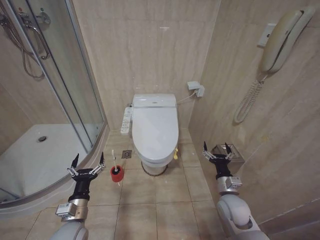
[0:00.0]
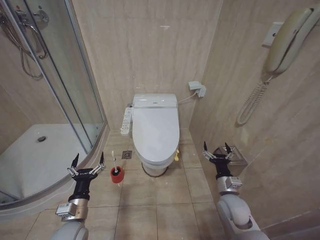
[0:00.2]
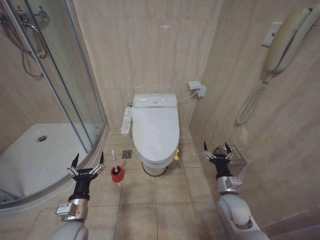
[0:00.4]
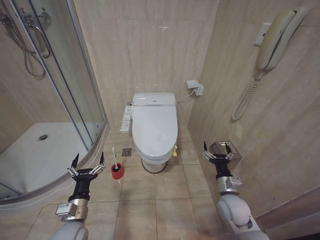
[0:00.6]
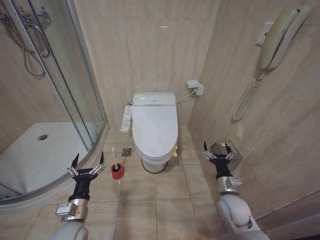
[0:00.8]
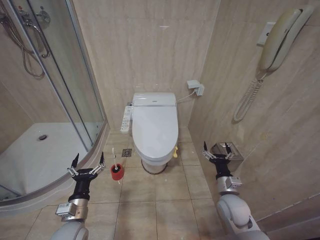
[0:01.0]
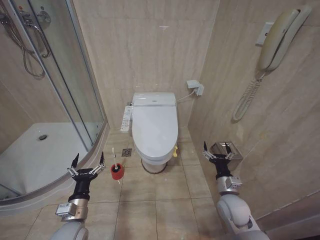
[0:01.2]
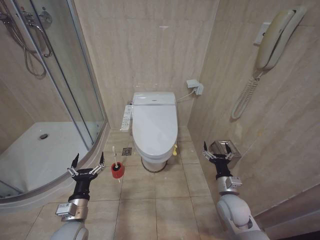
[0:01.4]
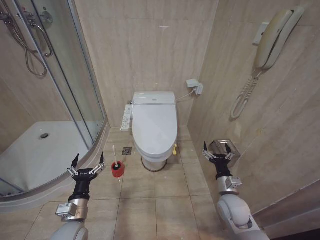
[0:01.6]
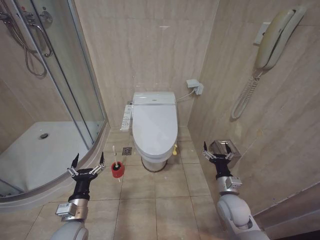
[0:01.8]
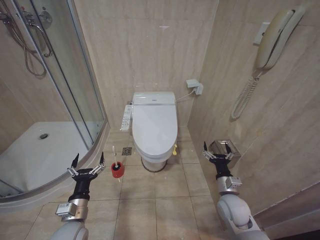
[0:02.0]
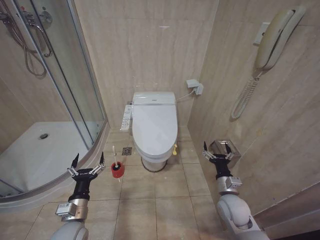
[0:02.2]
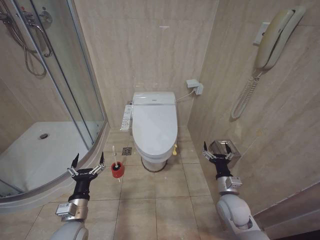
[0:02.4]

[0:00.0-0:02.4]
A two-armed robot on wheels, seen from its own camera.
Task of the whole recording: Open the toilet lid, clean the toilet bowl with a toilet brush, close the toilet lid, and flush.
0.0 to 2.4 s: The two grippers keep their place.

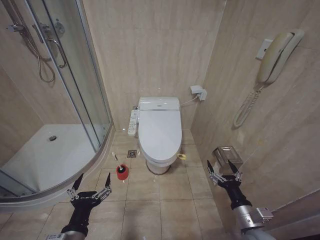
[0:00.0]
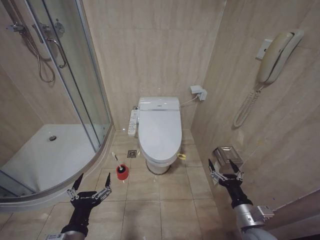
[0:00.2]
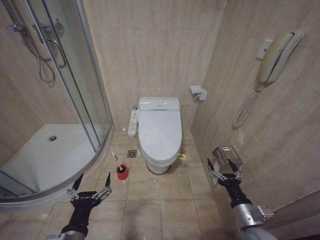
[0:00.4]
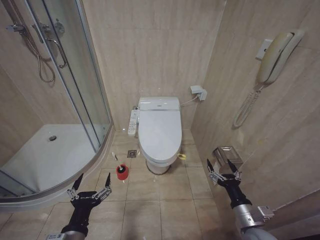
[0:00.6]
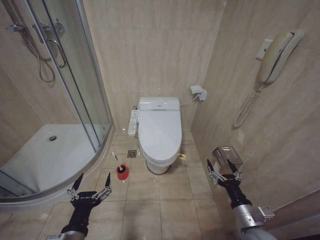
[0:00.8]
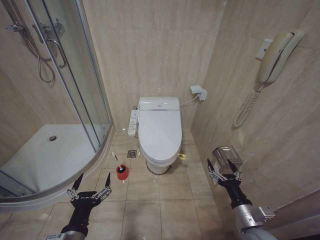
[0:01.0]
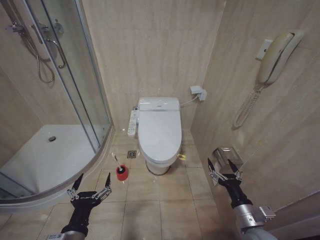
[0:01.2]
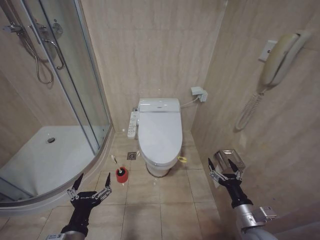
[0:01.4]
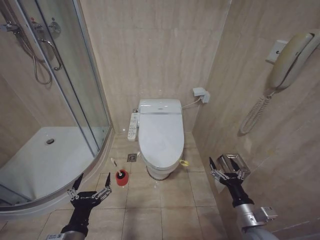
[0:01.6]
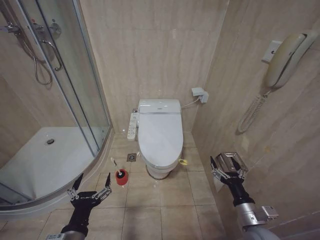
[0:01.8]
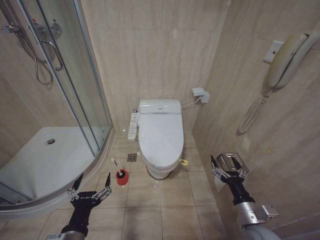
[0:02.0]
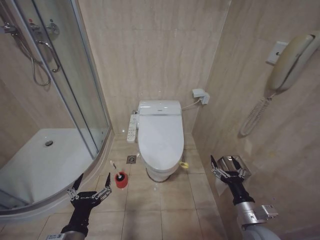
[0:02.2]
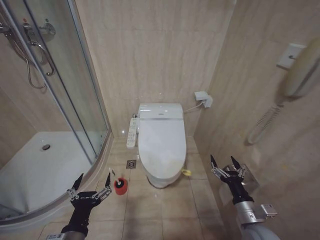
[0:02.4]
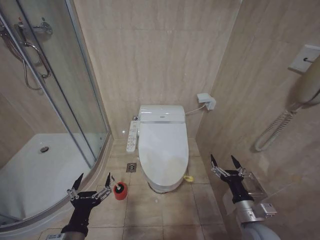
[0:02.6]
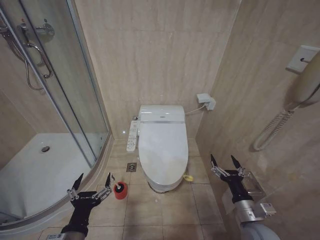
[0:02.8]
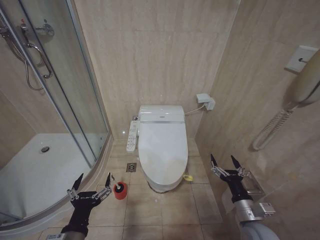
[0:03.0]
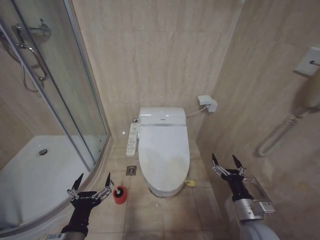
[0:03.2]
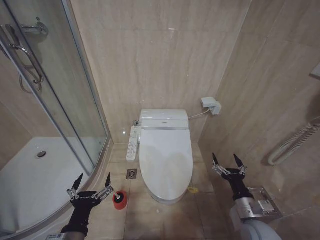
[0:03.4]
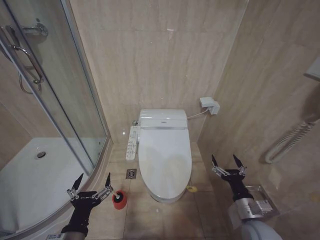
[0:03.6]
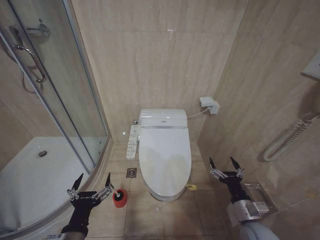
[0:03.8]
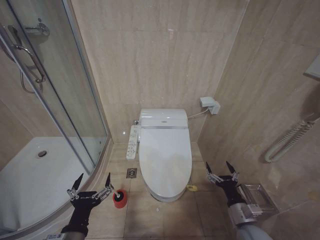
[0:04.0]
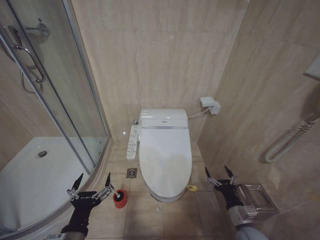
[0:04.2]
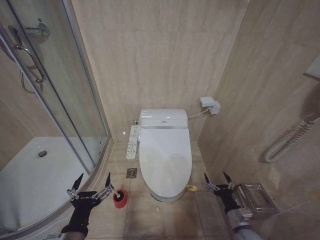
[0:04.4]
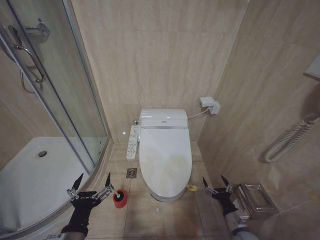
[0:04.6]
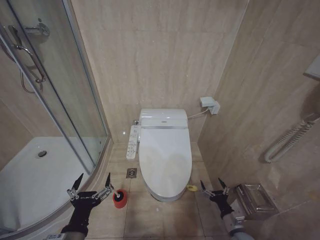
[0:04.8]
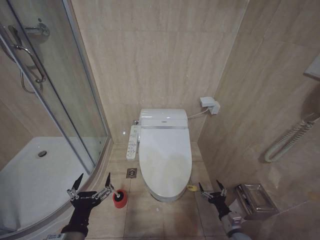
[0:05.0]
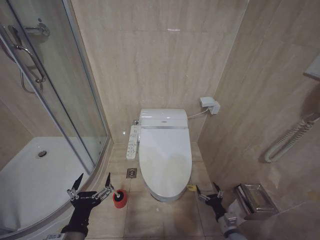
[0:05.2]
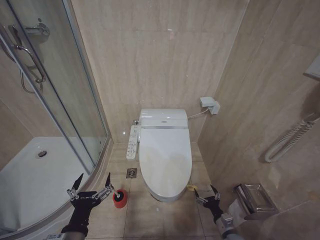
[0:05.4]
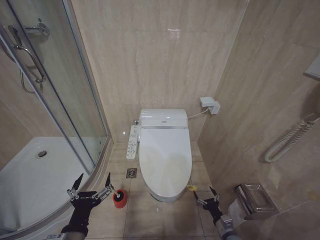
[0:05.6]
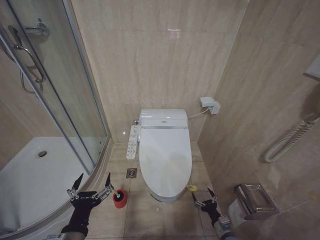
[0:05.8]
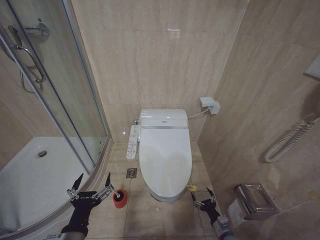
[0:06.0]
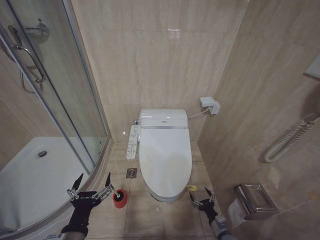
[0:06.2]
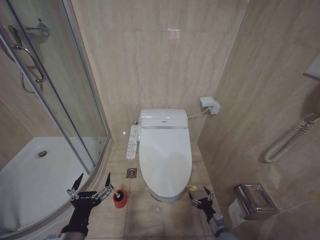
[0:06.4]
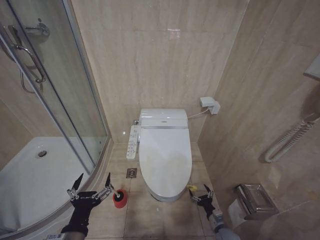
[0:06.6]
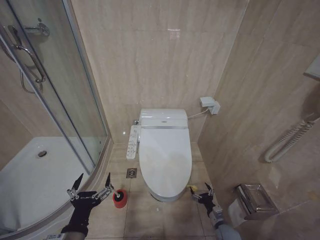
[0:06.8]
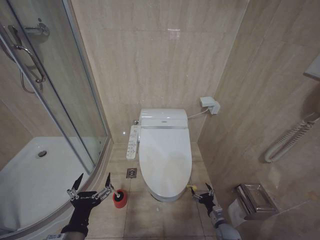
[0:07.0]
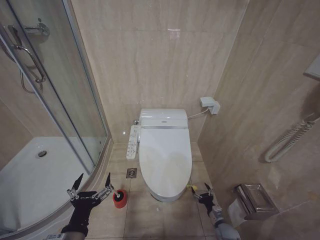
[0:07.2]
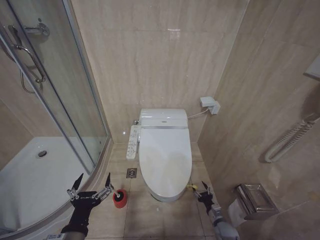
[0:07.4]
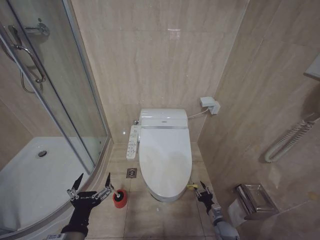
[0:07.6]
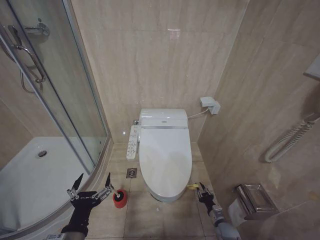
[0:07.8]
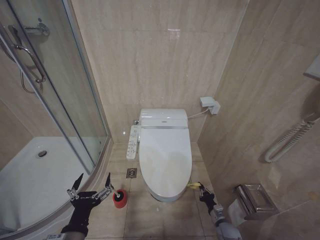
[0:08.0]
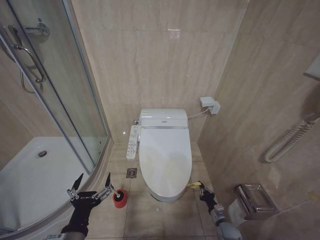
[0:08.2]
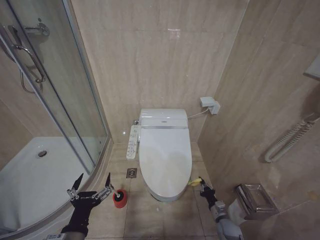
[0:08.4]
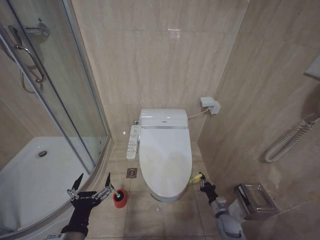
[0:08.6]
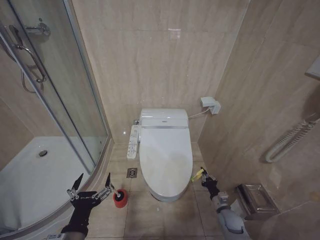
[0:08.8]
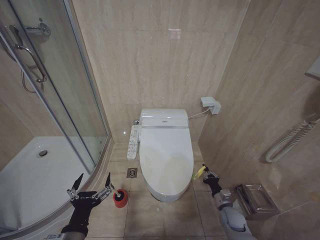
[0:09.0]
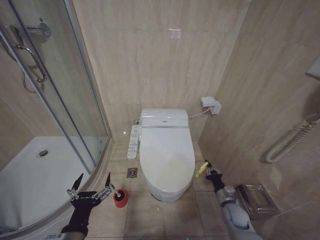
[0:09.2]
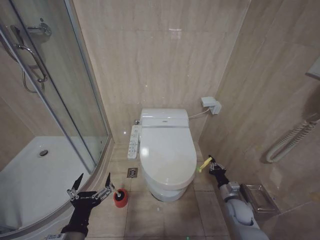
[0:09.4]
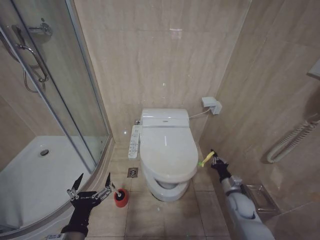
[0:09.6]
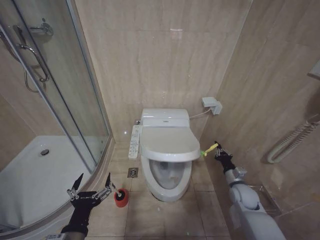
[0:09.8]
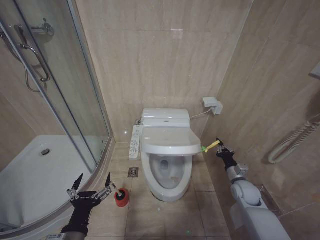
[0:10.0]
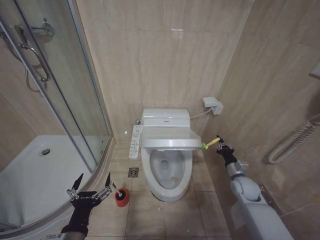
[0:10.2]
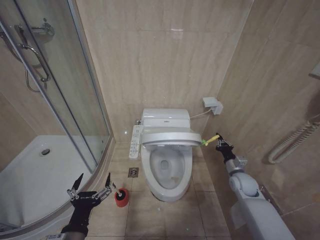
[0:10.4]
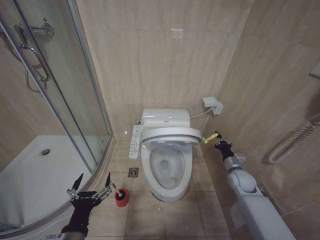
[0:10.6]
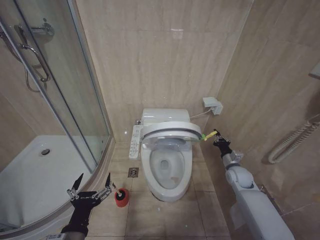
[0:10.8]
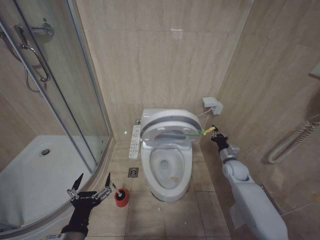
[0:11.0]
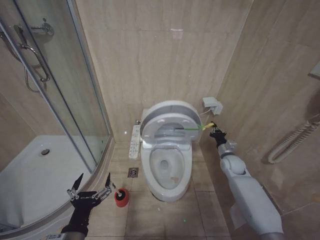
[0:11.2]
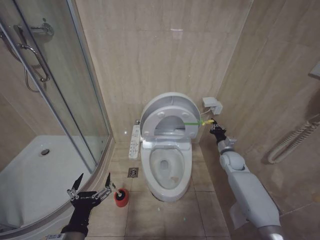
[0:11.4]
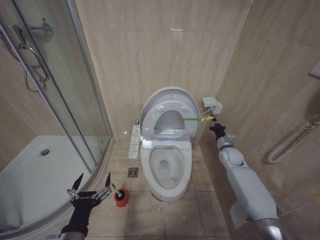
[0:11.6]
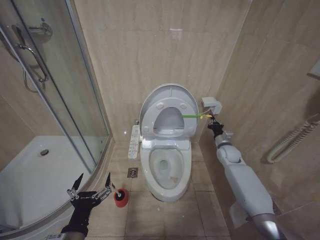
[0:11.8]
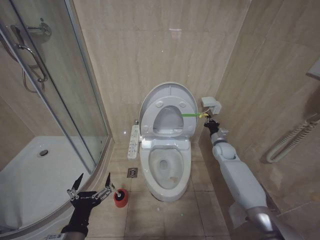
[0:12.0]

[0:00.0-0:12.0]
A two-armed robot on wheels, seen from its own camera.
Task of the whole recording: Open the toilet lid, clean the toilet bowl with a toilet brush, close the toilet lid, and flush.
1.6 to 3.0 s: There are only small adjustments of the grippers.
3.0 to 4.4 s: The right gripper shifts roughly 10 cm downward.
4.4 to 6.0 s: The right gripper goes some 15 cm downward.
6.0 to 7.6 s: The right gripper is displaced forward by roughly 5 cm, and closes its fingers.
7.6 to 9.0 s: The right gripper goes roughly 10 cm upward, and closes up.
9.0 to 10.4 s: The right gripper heads upward and forward, covering about 15 cm.
10.4 to 12.0 s: The right gripper is displaced forward by some 15 cm.

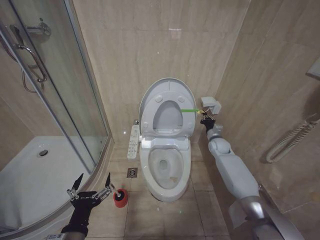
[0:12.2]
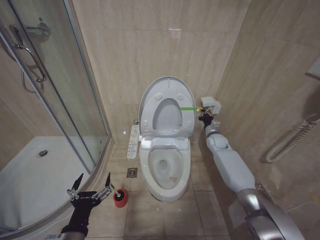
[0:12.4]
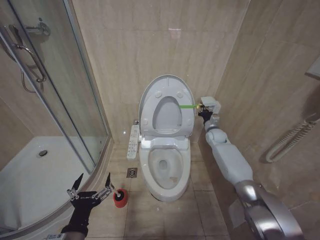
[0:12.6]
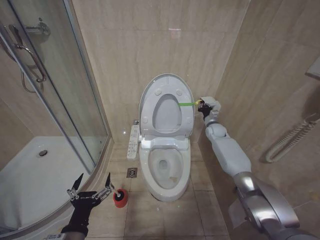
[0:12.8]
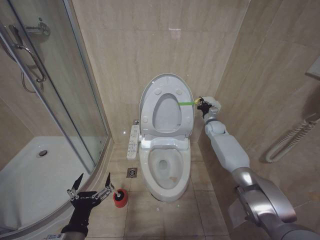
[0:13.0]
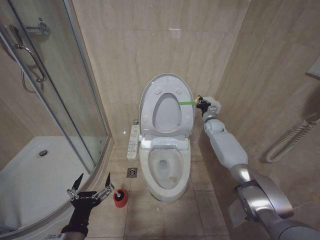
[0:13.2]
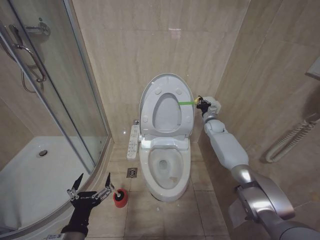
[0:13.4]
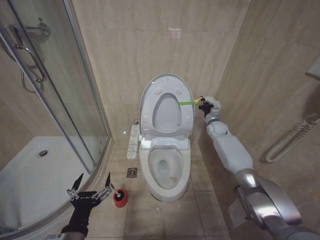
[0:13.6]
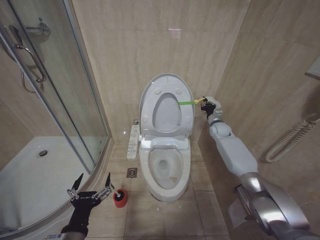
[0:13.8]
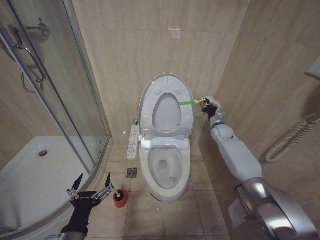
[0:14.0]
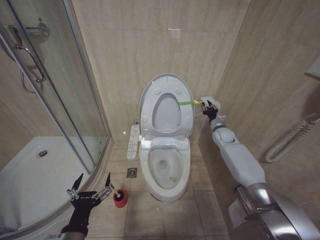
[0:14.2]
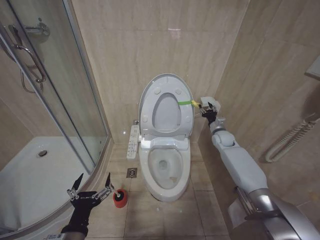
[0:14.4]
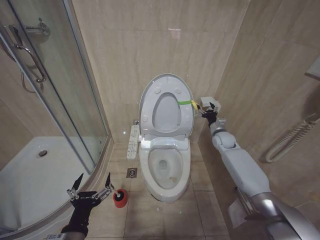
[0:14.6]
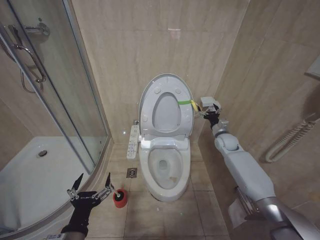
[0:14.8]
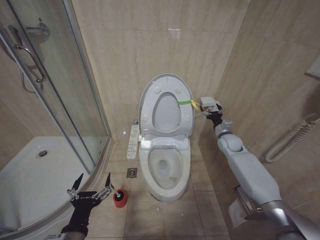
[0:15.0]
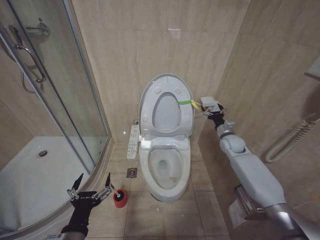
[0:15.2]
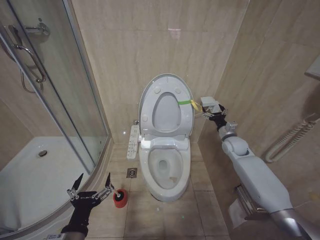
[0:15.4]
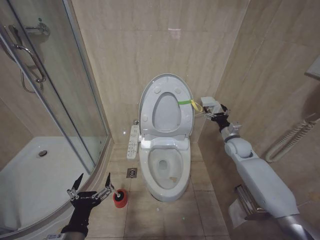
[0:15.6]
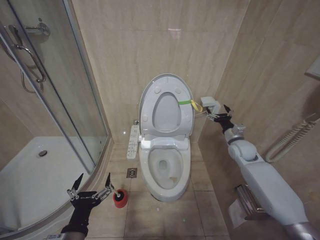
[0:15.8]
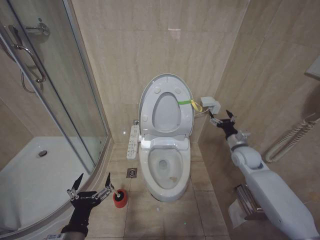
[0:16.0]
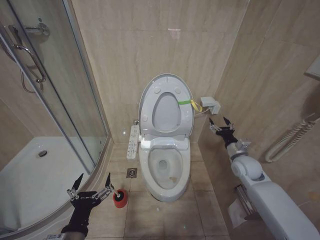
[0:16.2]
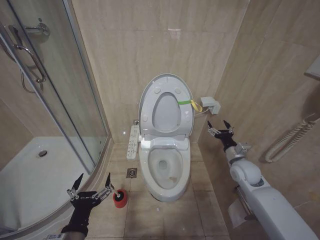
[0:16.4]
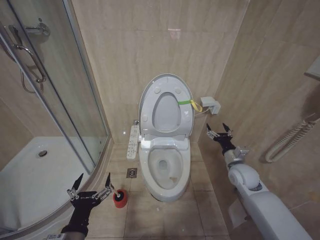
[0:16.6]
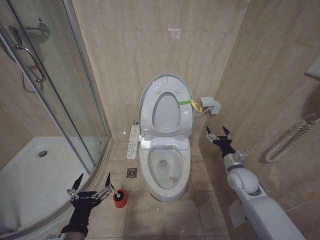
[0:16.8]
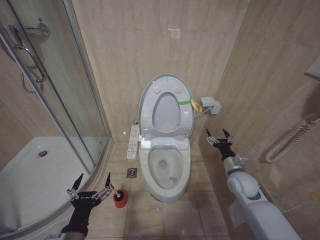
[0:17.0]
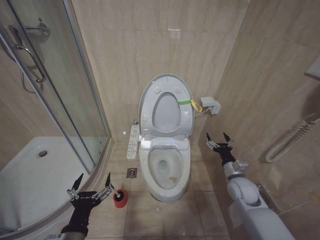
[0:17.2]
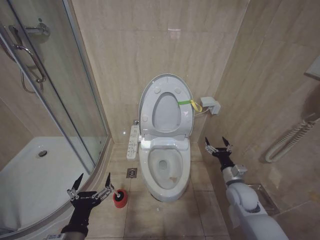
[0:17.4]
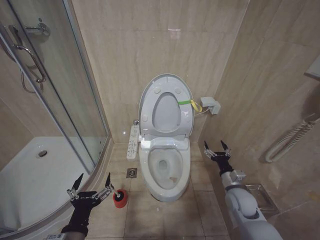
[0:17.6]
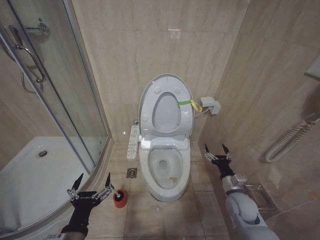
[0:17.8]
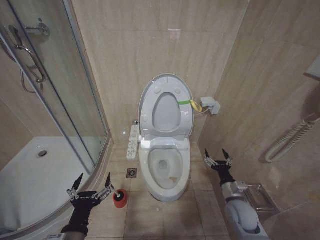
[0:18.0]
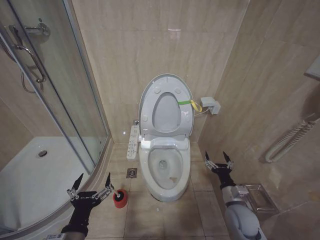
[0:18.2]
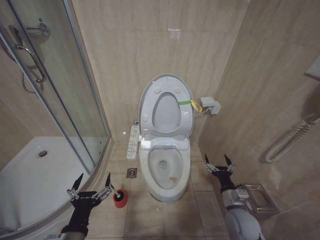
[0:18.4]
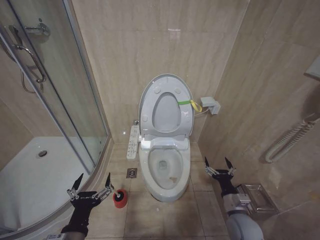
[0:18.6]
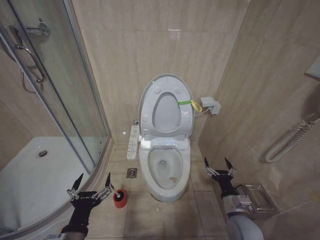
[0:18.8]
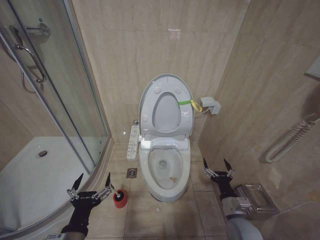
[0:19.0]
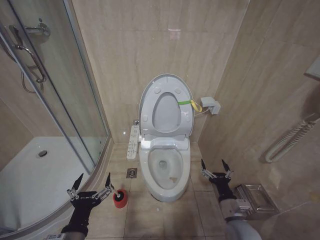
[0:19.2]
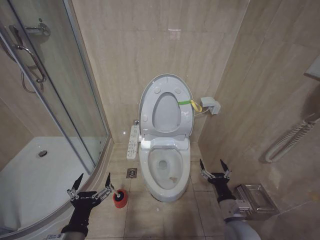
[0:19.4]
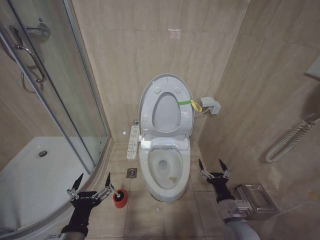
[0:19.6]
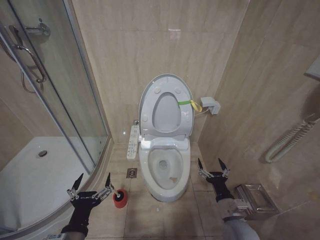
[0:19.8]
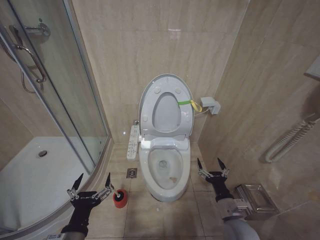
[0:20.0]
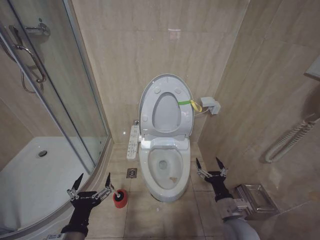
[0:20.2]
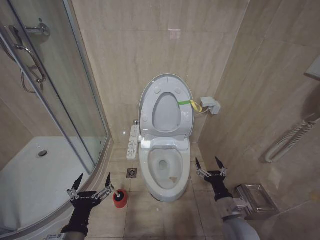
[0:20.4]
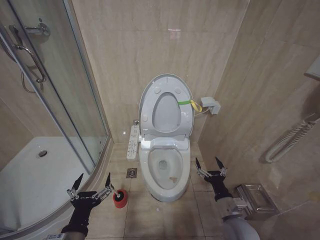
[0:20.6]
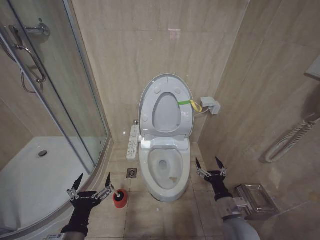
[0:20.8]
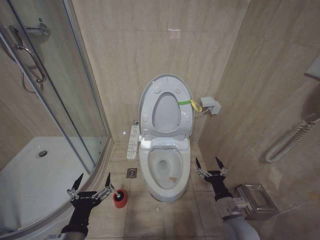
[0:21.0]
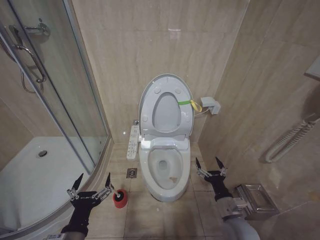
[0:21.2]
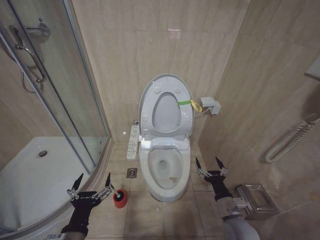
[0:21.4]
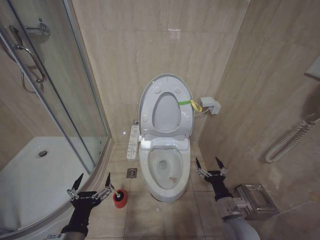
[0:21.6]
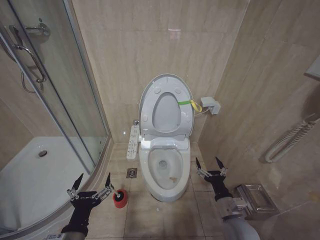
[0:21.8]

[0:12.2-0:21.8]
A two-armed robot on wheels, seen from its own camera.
Task of the whole recording: Open the toilet lid, clean the toilet bowl with a toilet brush, close the toilet lid, and flush.
12.2 to 13.8 s: The right gripper travels upward and forward by approximately 10 cm.
13.8 to 15.4 s: The right gripper shifts approximately 10 cm backward, and opens its fingers.
15.4 to 17.0 s: The right gripper is displaced backward by about 15 cm.
17.0 to 18.6 s: The right gripper heads backward and downward, covering some 15 cm.
18.6 to 20.2 s: There are only small adjustments of the grippers.
20.2 to 21.8 s: Both grippers stay about where they are.
